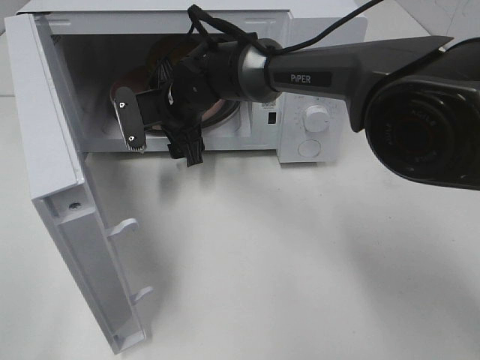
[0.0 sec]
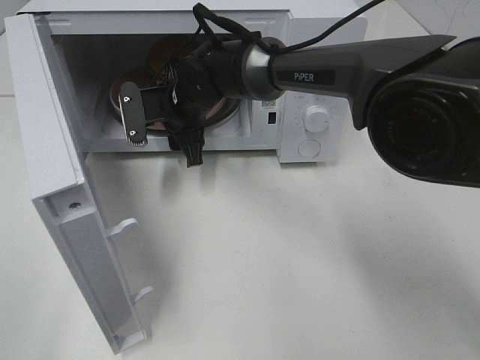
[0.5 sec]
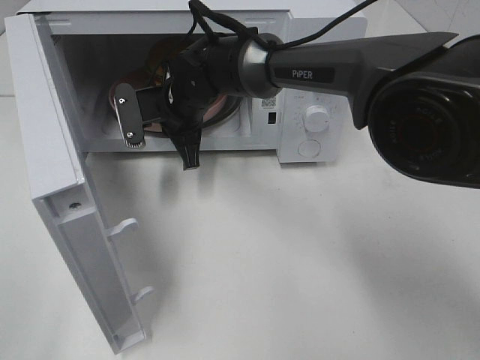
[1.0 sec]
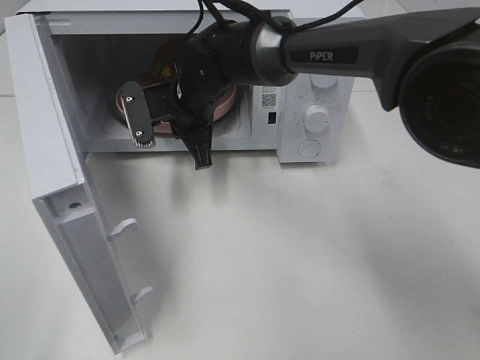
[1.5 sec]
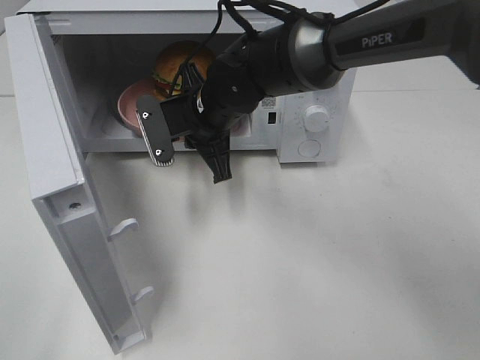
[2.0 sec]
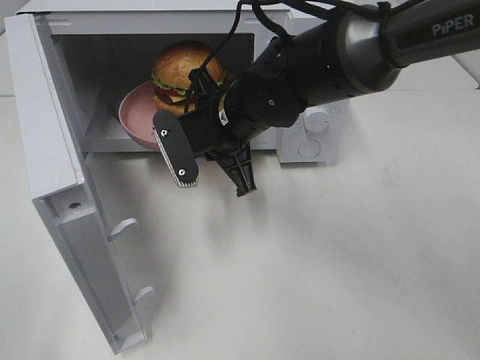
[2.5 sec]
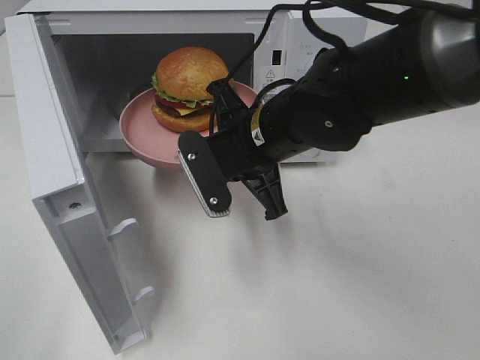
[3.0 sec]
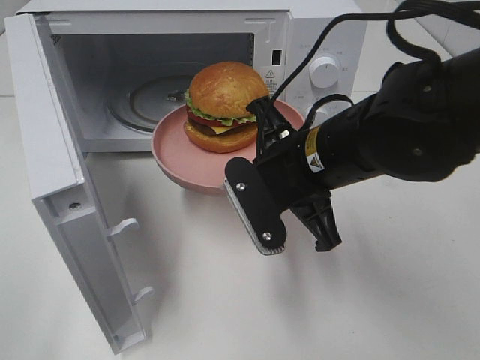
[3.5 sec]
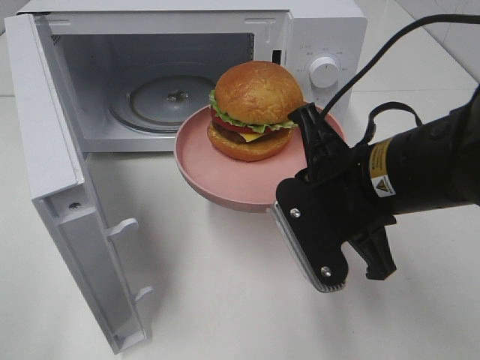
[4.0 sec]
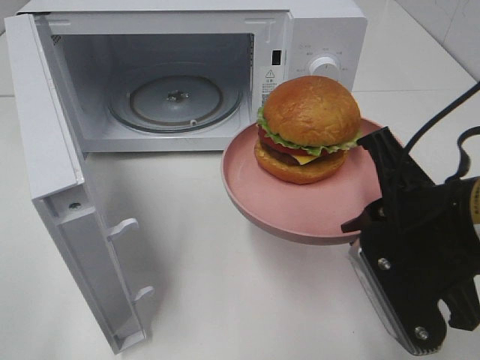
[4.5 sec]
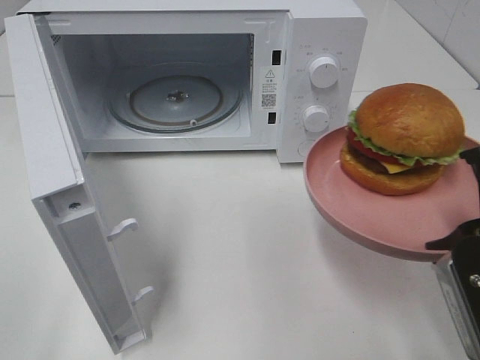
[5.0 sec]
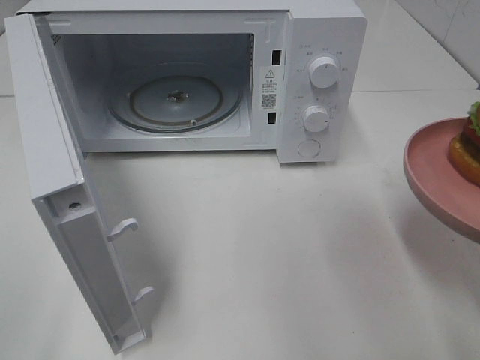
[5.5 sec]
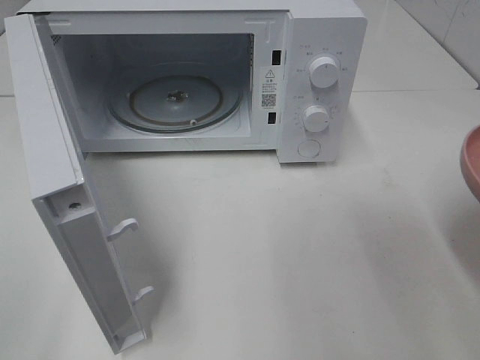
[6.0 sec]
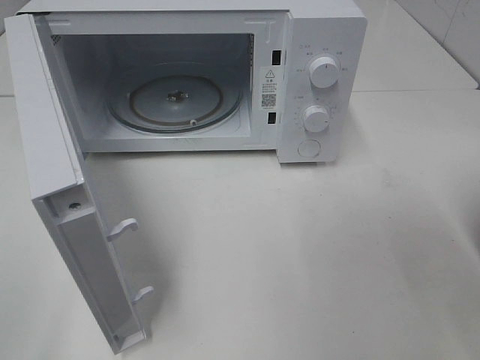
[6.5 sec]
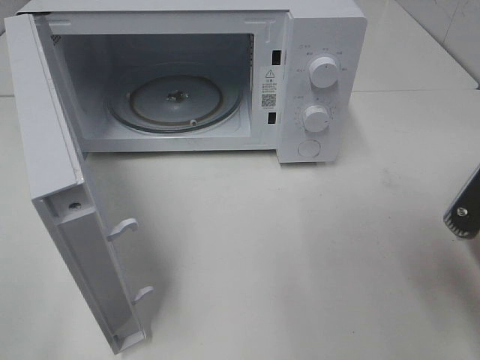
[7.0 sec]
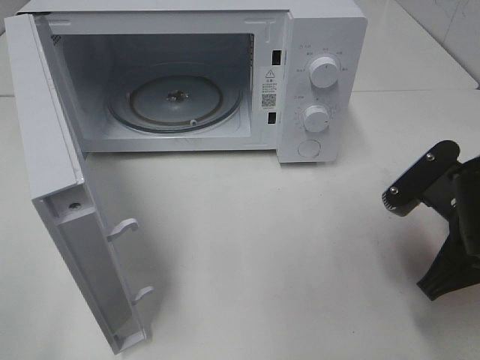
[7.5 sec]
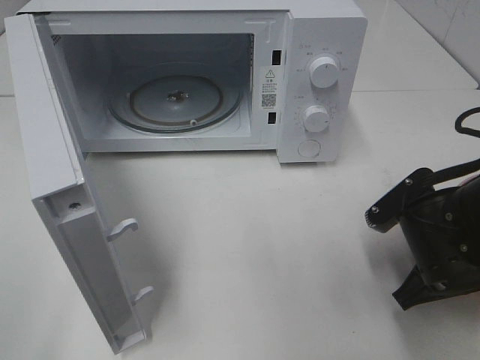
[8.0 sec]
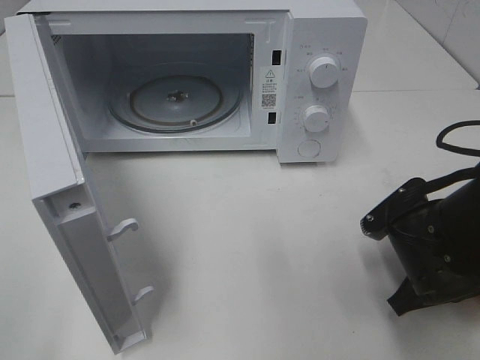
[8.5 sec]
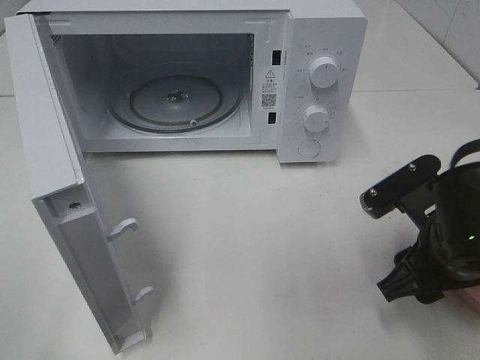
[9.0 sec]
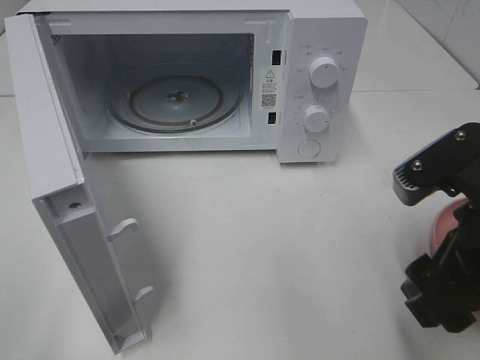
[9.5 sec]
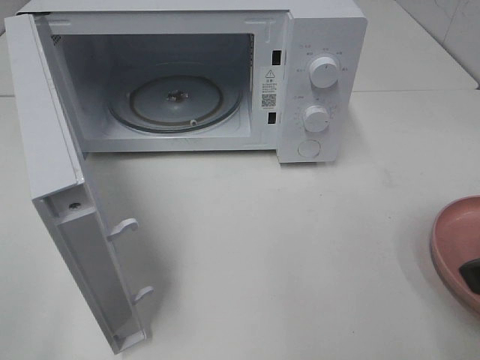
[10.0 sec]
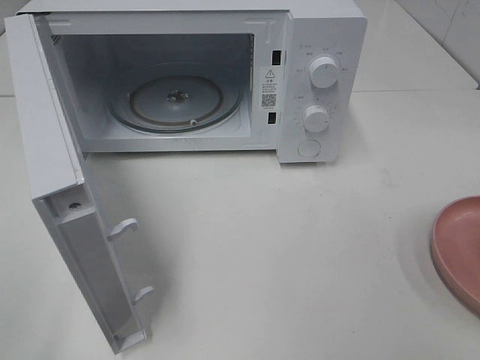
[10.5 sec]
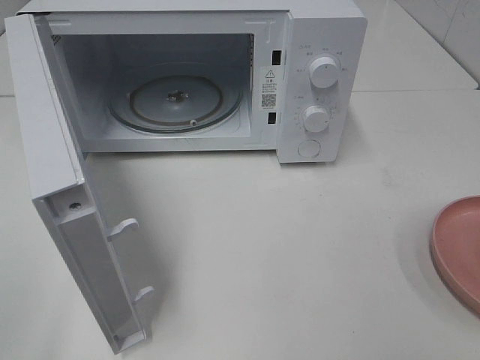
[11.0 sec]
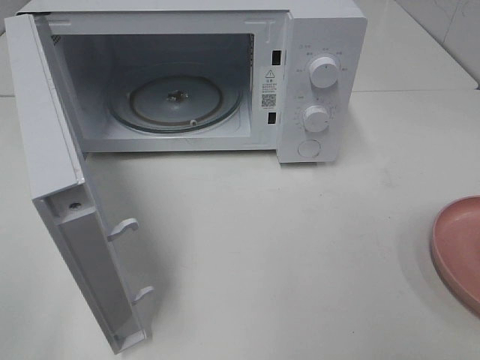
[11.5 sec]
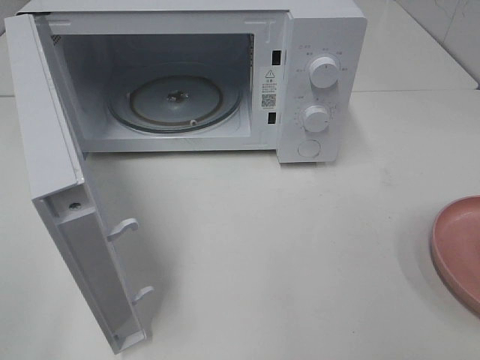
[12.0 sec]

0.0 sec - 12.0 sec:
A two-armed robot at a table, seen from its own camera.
Task of the whole recording: Heat the burger.
Step, 1.5 sec - 8.5 sec: Right hand: place the plate on the table.
0.0 sec - 2.0 sec: The right gripper shifts about 5 cm backward, and closes its fingers.
2.0 sec - 4.0 sec: The right gripper travels backward and to the right by about 20 cm.
4.0 sec - 6.0 sec: The right gripper heads to the right and backward, covering roughly 15 cm.
6.0 sec - 8.0 sec: The right gripper shifts some 15 cm downward, forward and to the left.
8.0 sec - 10.0 sec: The right gripper heads upward and backward, covering roughly 20 cm, and opens up.
10.0 sec - 12.0 sec: The right gripper is displaced backward and to the right by roughly 15 cm.

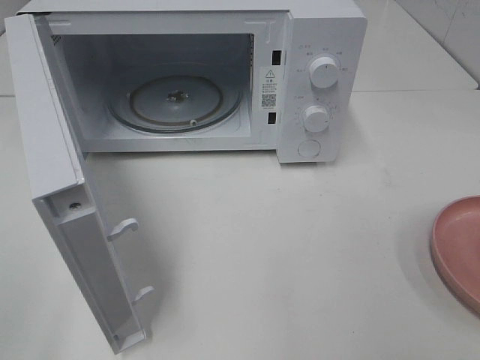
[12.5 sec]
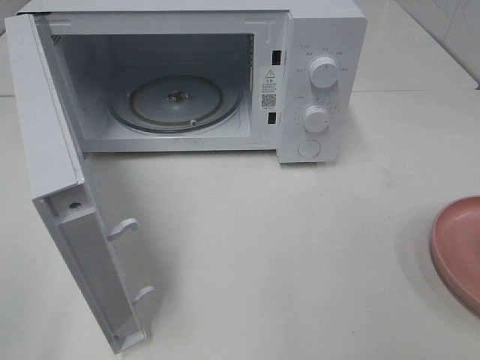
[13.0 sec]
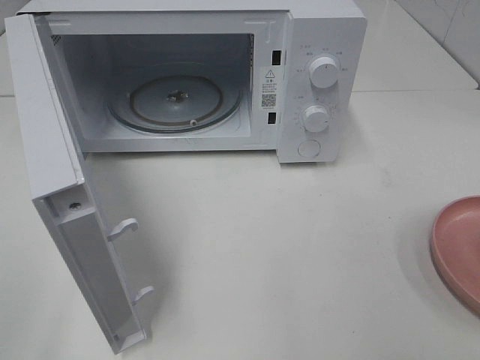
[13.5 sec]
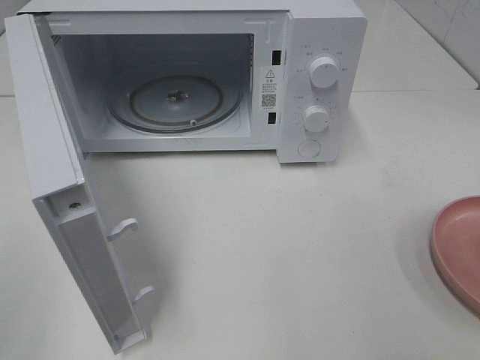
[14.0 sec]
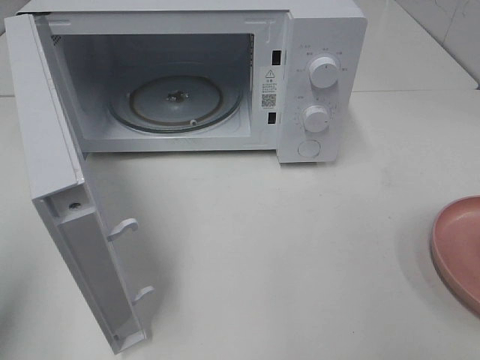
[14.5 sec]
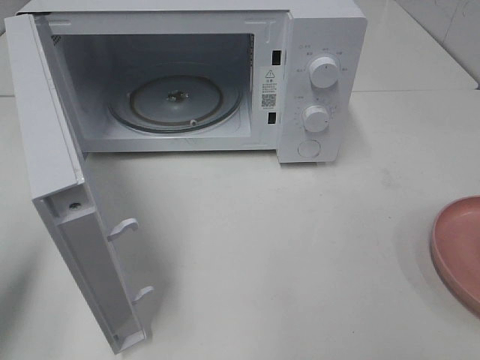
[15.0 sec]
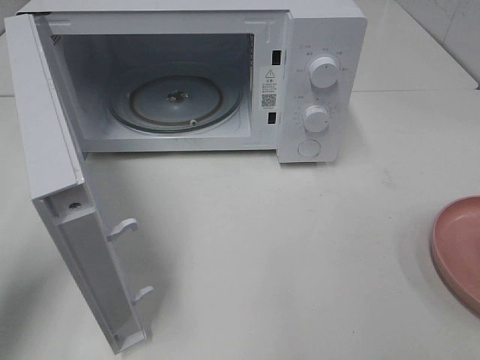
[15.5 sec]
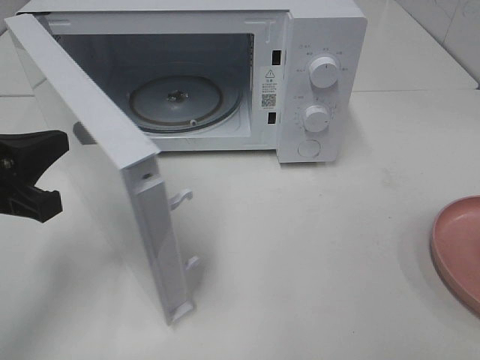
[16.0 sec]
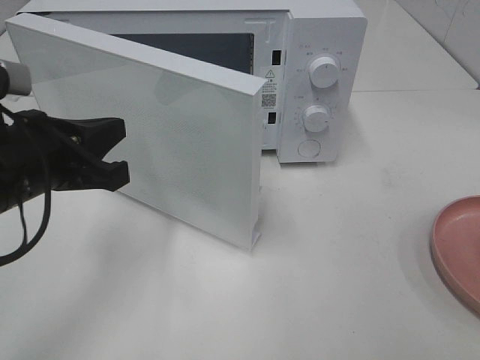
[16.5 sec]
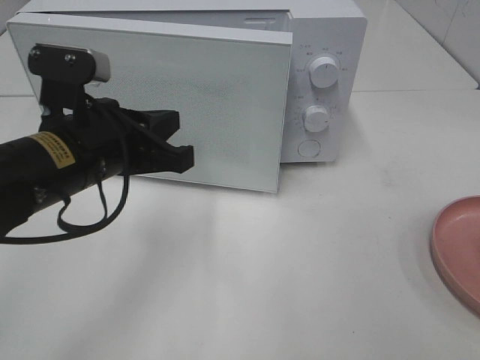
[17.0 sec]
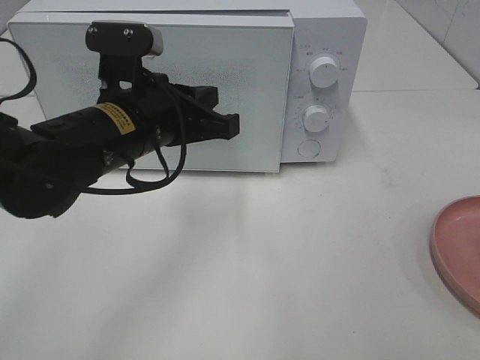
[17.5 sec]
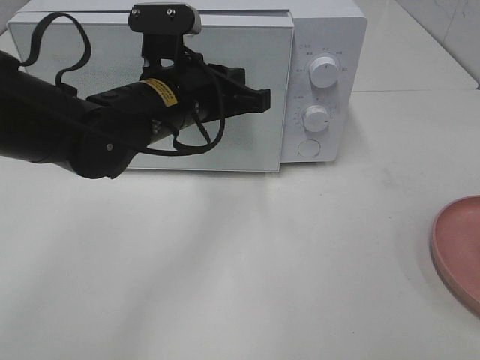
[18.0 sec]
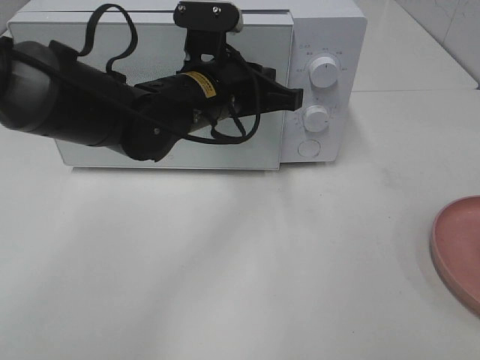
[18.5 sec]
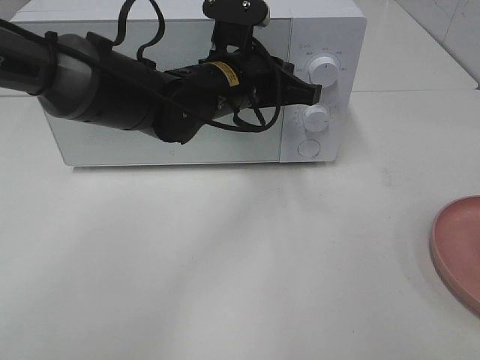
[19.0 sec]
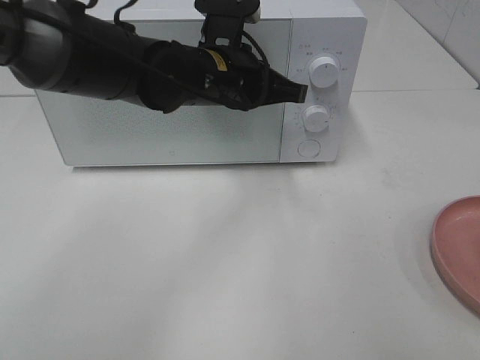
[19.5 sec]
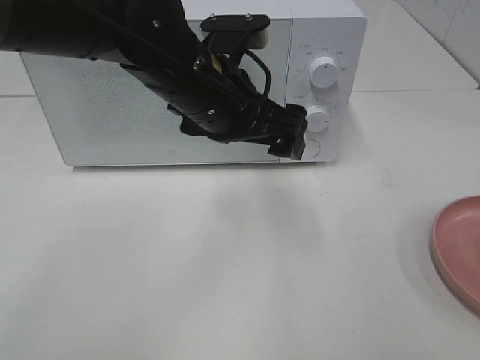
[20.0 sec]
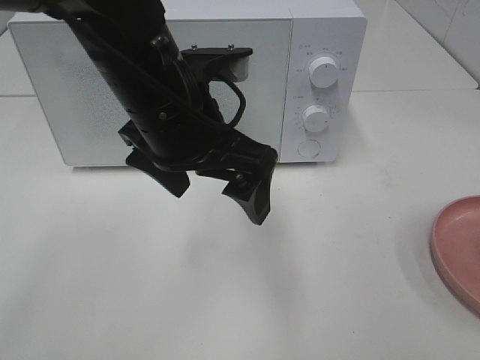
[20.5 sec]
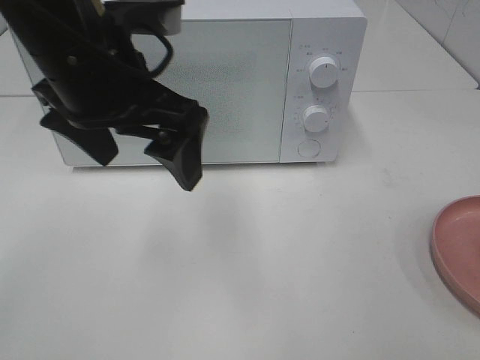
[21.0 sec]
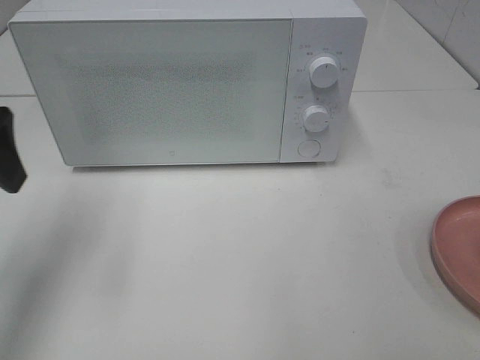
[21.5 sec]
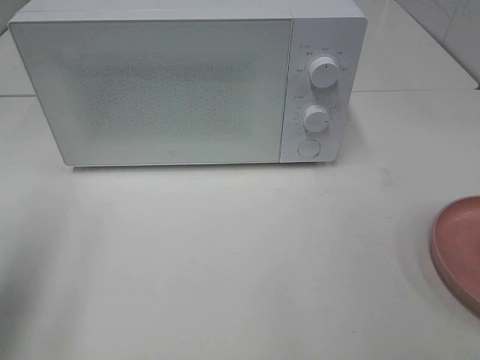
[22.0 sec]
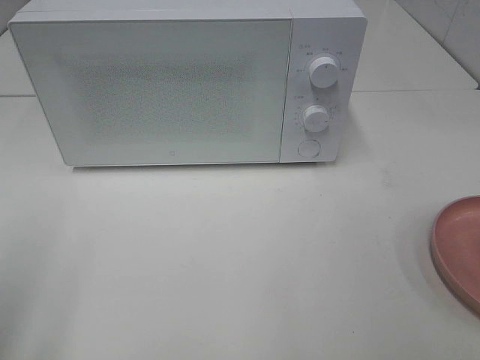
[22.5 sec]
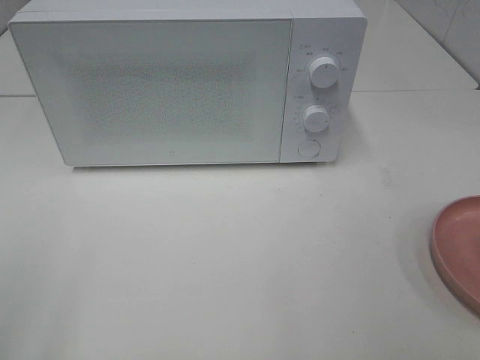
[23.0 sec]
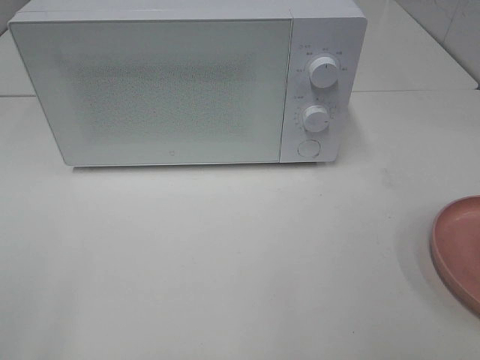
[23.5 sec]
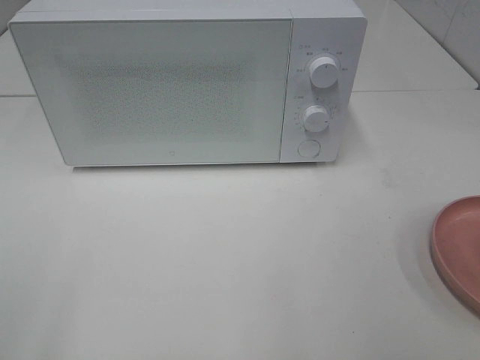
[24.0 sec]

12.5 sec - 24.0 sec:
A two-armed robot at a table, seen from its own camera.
Task of the whole recording: Heat the burger.
Step, 12.5 sec - 19.5 sec: Left hand: close the microwave door.
12.5 sec - 14.5 sec: The left gripper shifts roughly 10 cm forward, and closes up.
14.5 sec - 16.5 sec: The left gripper moves to the right, forward and downward, about 20 cm.
16.5 sec - 18.5 sec: The left gripper shifts approximately 20 cm to the right and forward.
18.5 sec - 20.0 sec: The left gripper shifts by some 5 cm, and opens up.
20.0 sec - 22.0 sec: The left gripper travels to the left and backward by approximately 30 cm.
22.0 sec - 24.0 sec: The left gripper heads backward, covering some 15 cm.
